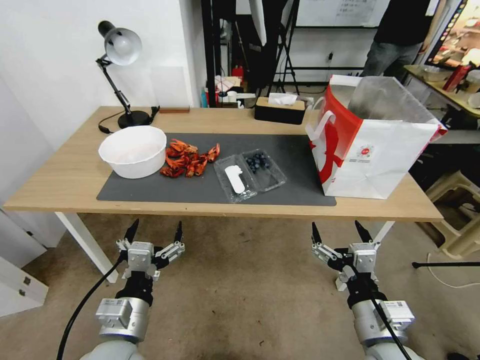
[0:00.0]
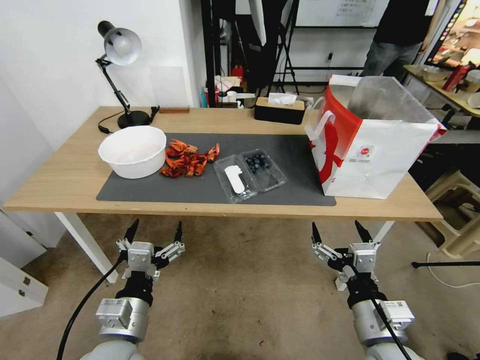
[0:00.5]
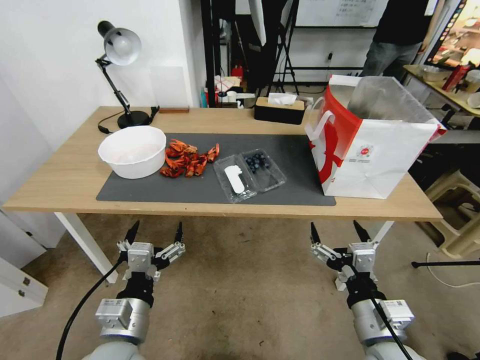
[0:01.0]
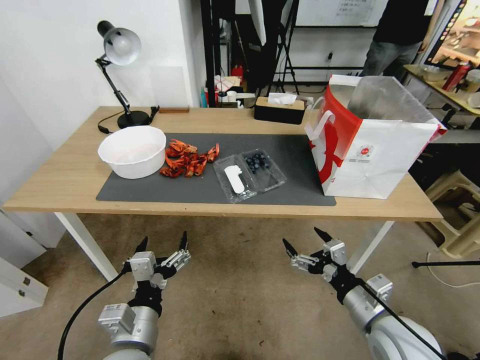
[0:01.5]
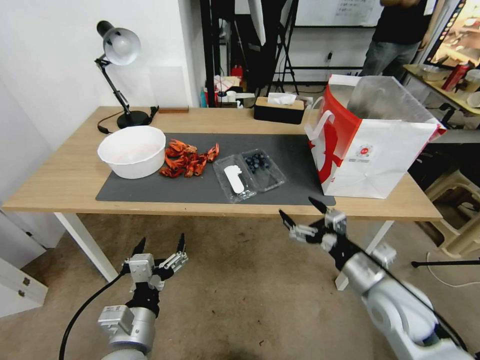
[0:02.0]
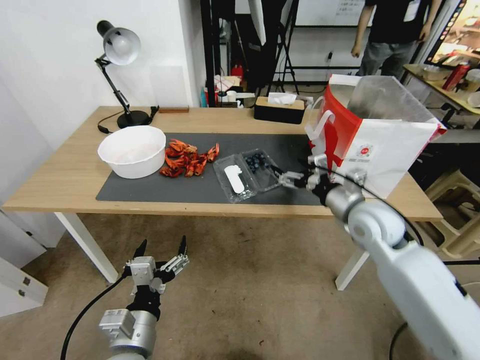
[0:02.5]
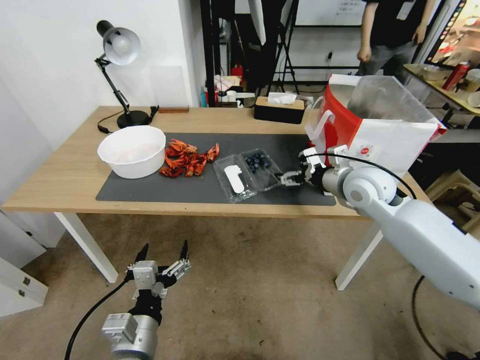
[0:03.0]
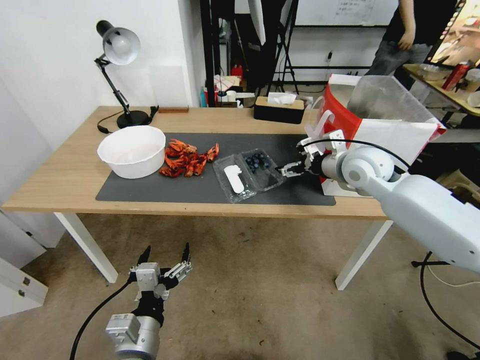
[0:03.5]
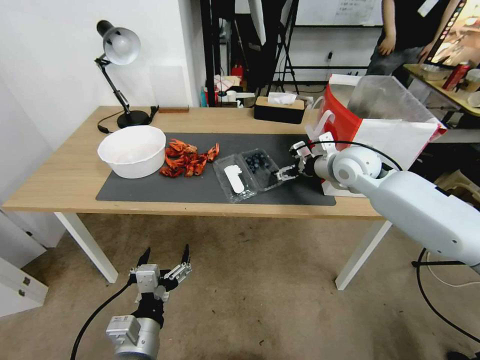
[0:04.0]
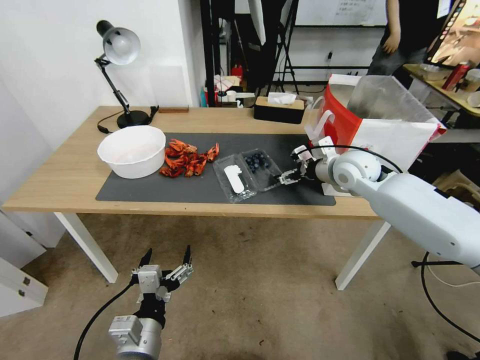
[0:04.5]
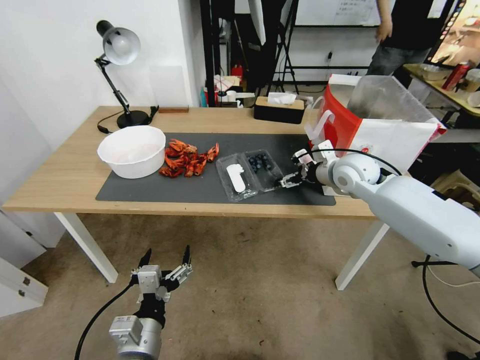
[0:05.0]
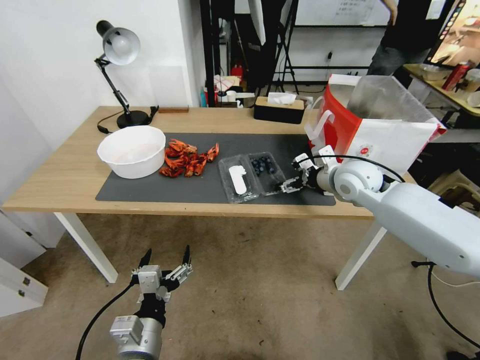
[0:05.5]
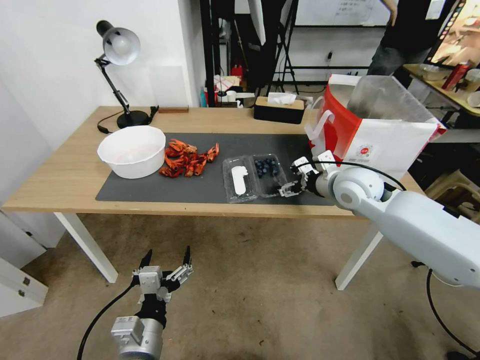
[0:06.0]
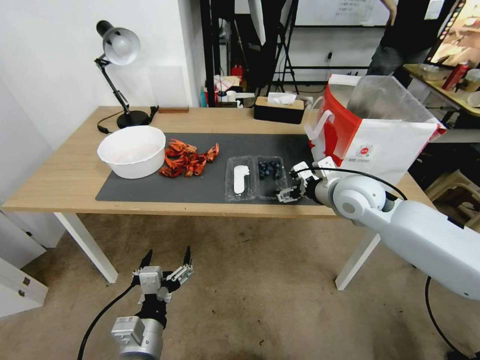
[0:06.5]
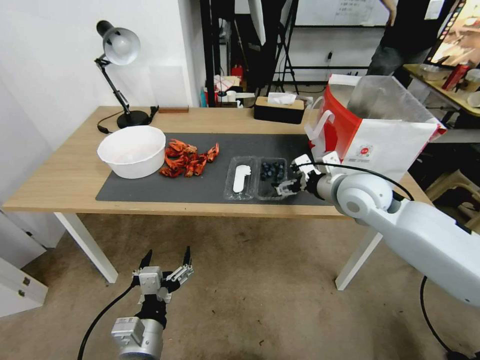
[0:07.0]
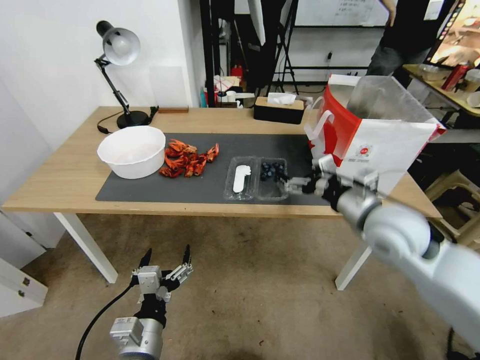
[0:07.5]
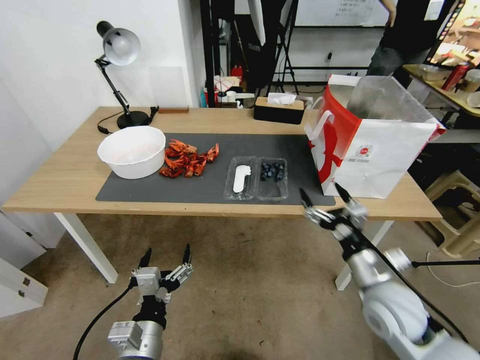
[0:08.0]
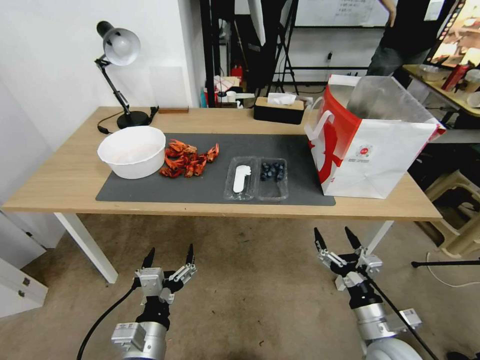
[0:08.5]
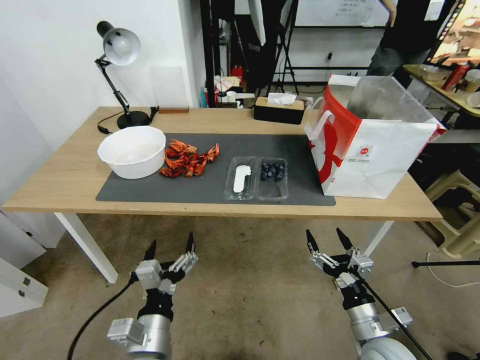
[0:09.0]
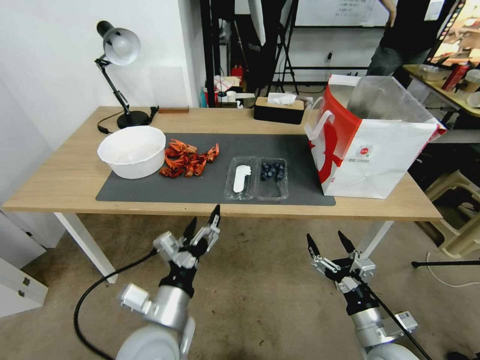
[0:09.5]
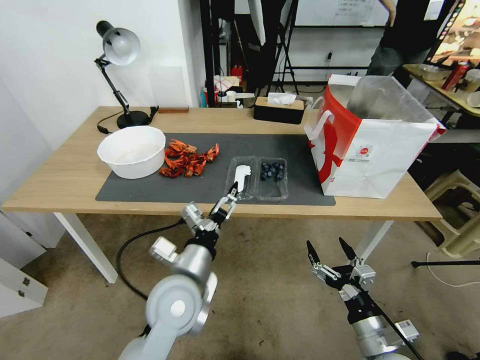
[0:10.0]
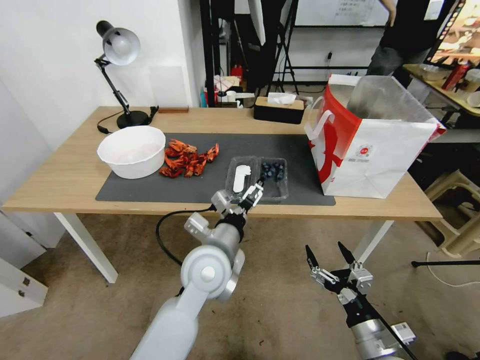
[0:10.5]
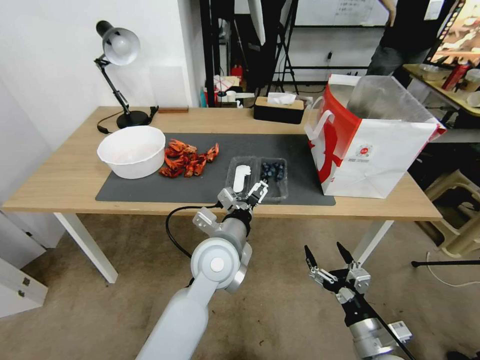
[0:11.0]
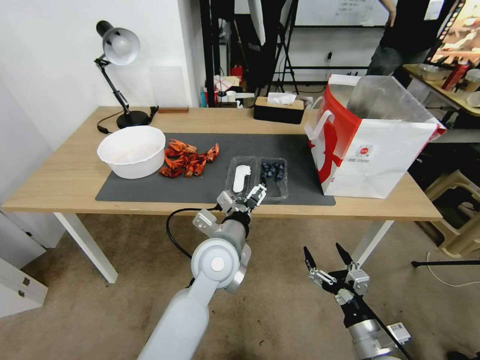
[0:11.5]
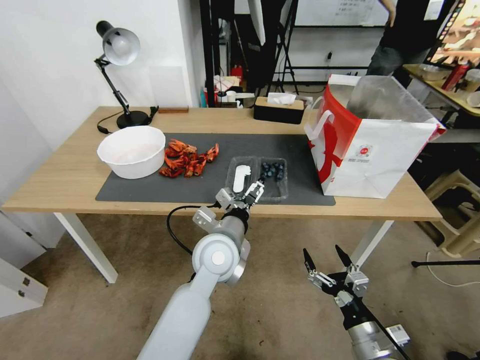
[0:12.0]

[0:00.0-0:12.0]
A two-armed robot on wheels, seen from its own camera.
Task of the whole recording: Close the takeout container lid, then place the container into the takeout bag.
0:02.0 to 0:04.0: The right gripper moves forward and upward, some 30 cm.
0:04.0 to 0:06.0: There are only small adjustments of the grippers.
0:06.0 to 0:08.0: The right gripper goes about 25 cm backward and downward.
0:08.0 to 0:10.0: The right gripper moves backward and downward, approximately 15 cm; the left gripper shifts roughly 15 cm forward, upward and to the right.
0:10.0 to 0:12.0: The left gripper goes roughly 10 cm forward and to the right.

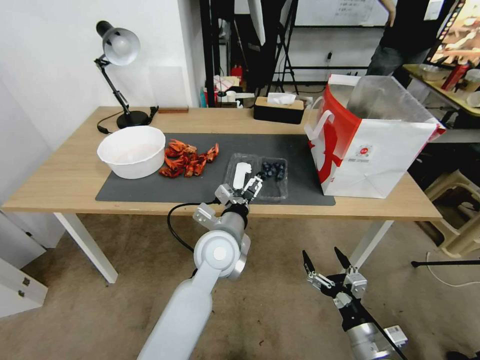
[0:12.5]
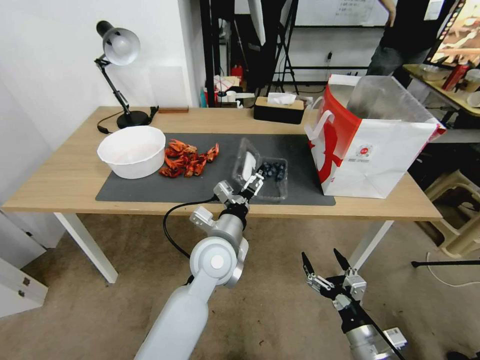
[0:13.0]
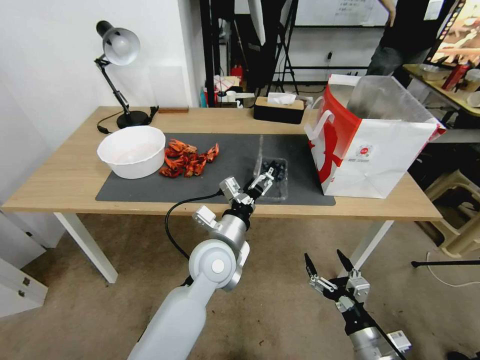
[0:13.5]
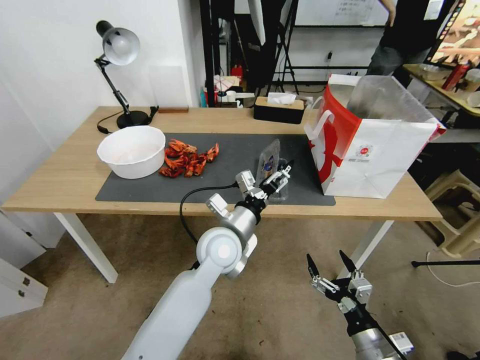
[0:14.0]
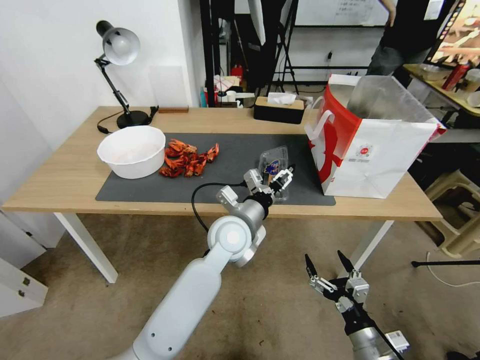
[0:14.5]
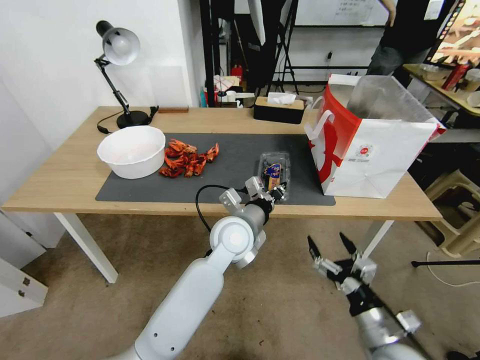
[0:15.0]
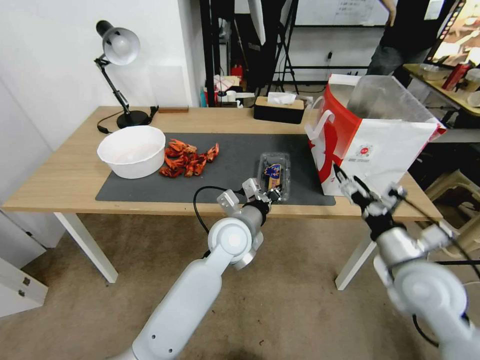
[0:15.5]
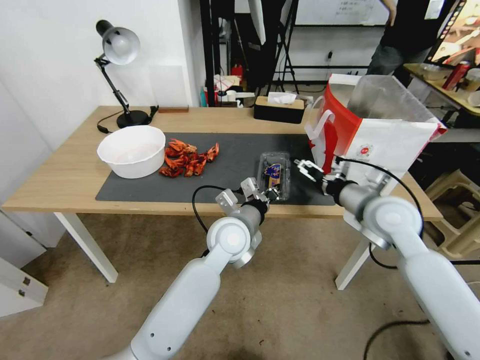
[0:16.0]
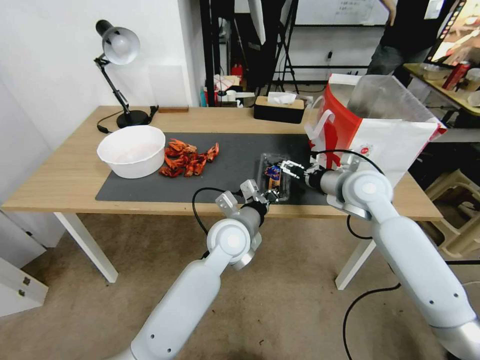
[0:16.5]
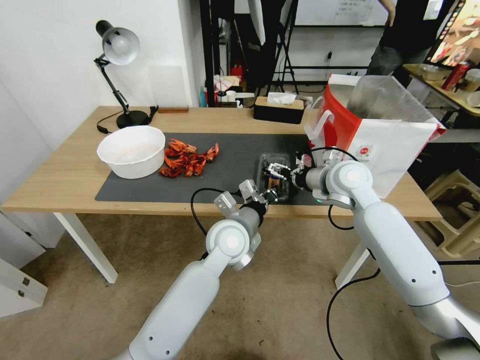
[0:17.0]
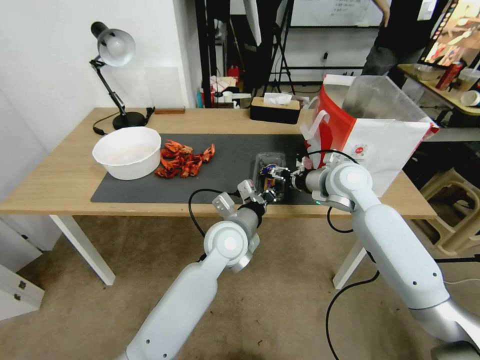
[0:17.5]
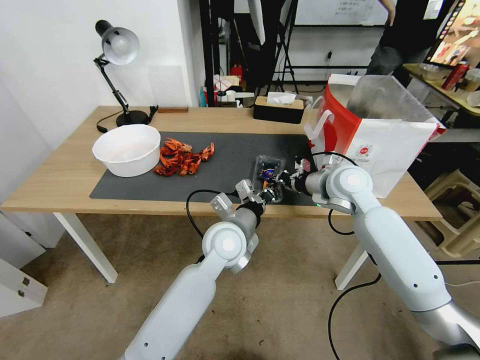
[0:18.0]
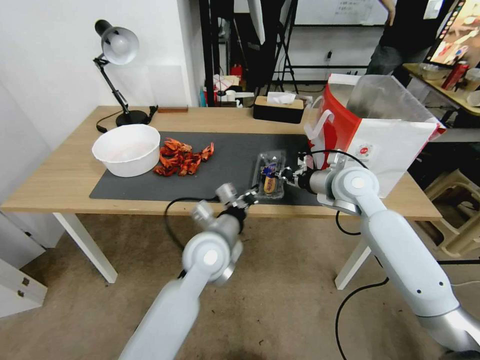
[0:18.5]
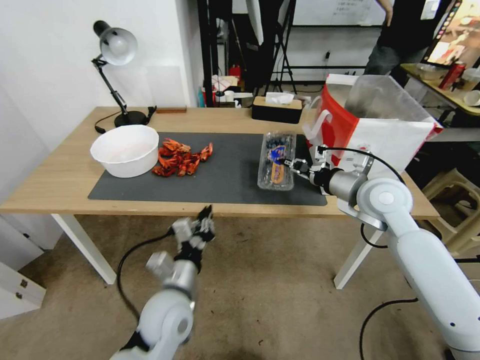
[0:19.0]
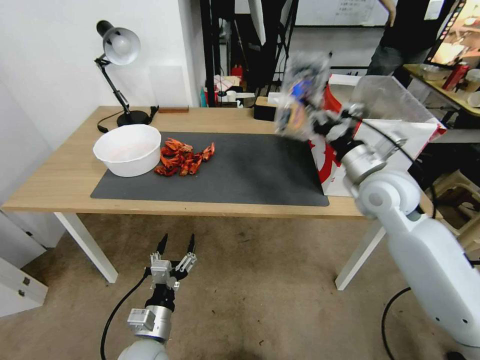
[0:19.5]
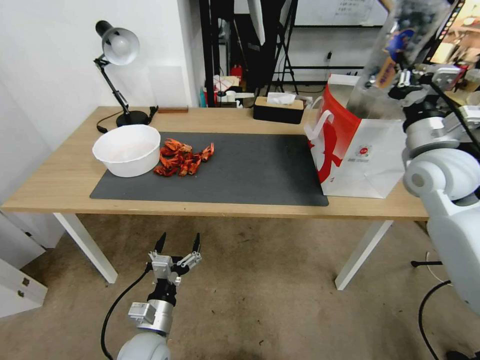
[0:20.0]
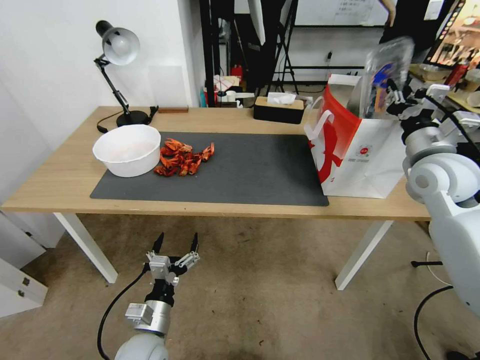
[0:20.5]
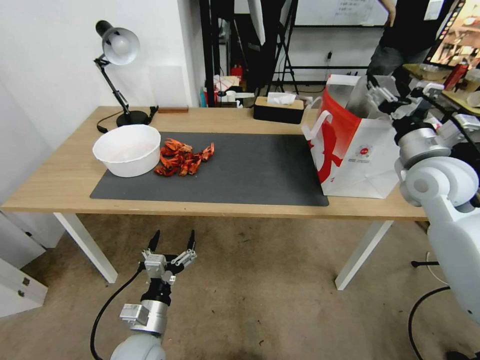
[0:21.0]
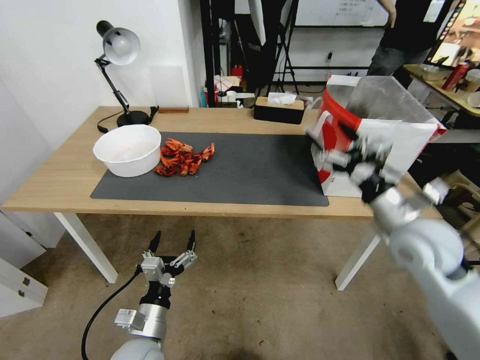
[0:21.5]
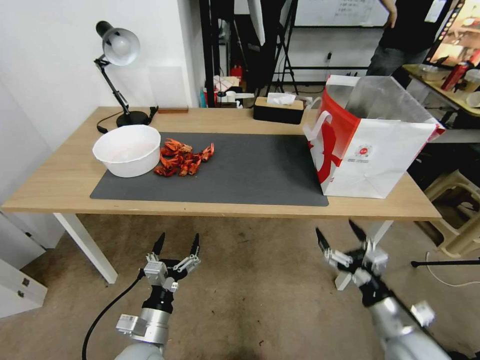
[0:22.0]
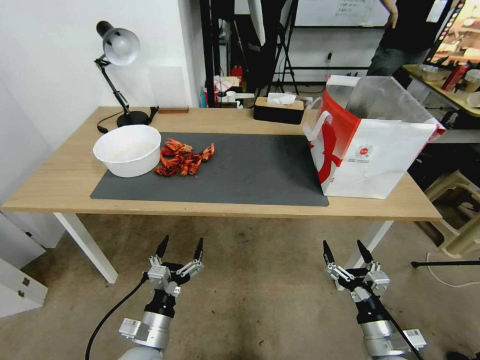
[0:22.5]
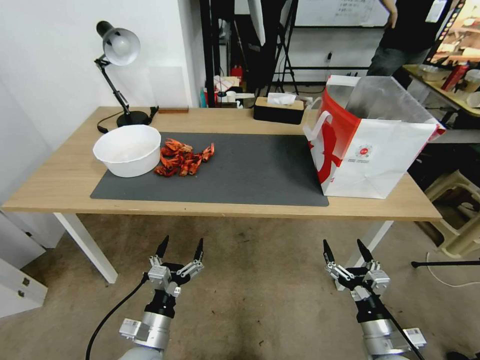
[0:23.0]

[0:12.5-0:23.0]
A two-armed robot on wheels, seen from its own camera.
Task of the whole recording: Close the takeout container lid, then place the container into the takeout bag.
0:14.5 to 0:16.5: The right gripper shifts roughly 40 cm forward and upward. Meanwhile the left gripper closes its fingers.
0:16.5 to 0:19.0: The right gripper closes its fingers; the left gripper is displaced backward, to the left and downward by approximately 20 cm.
0:19.0 to 0:21.0: The right gripper travels to the right and upward by approximately 10 cm, and opens its fingers. The left gripper moves downward, to the left and backward, approximately 10 cm, and opens.
0:21.0 to 0:23.0: The right gripper goes approximately 40 cm downward and backward.
